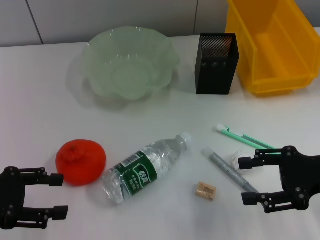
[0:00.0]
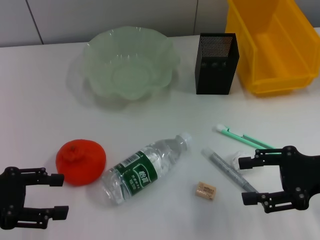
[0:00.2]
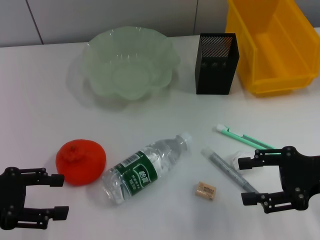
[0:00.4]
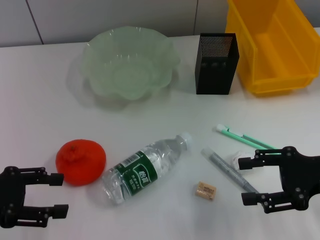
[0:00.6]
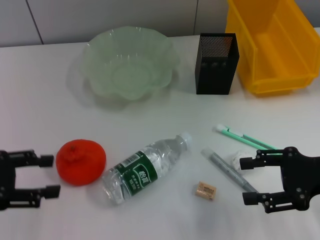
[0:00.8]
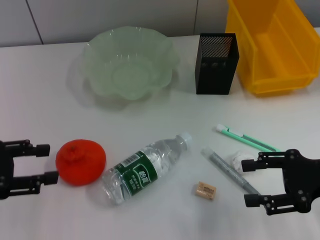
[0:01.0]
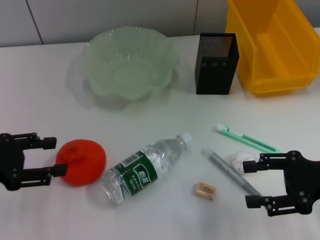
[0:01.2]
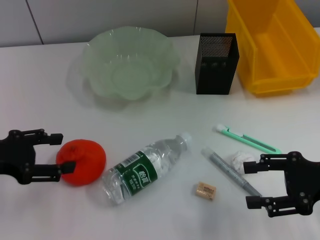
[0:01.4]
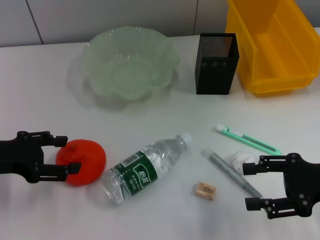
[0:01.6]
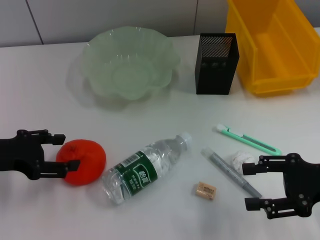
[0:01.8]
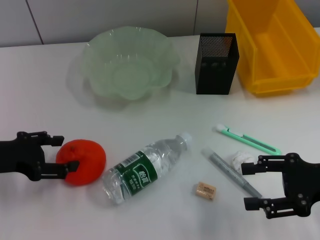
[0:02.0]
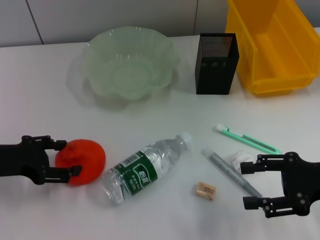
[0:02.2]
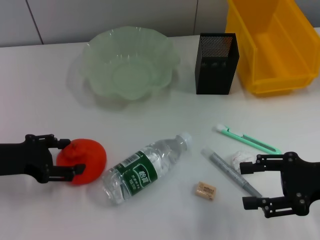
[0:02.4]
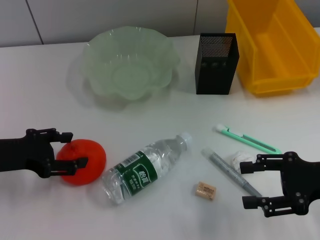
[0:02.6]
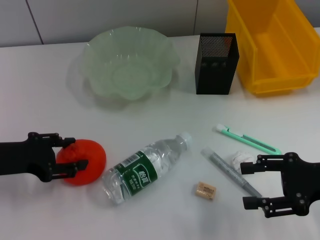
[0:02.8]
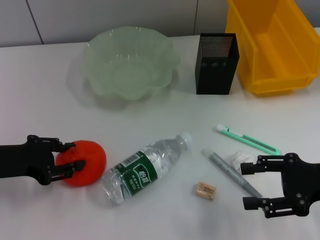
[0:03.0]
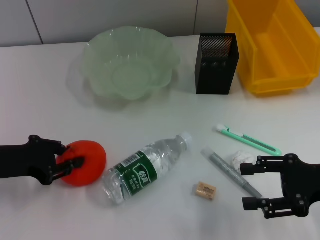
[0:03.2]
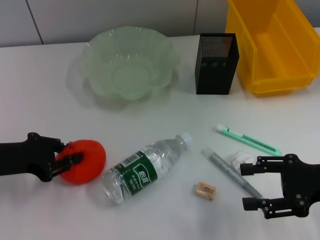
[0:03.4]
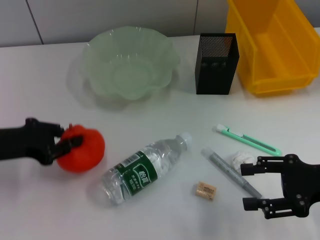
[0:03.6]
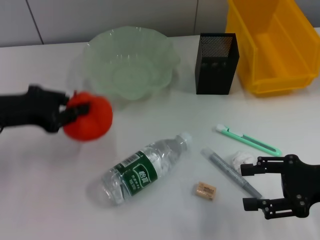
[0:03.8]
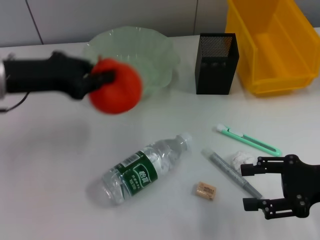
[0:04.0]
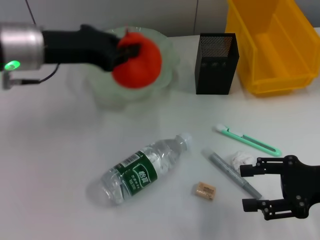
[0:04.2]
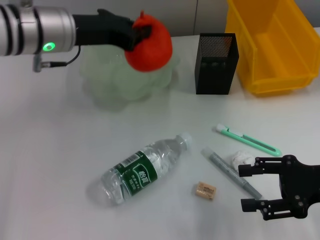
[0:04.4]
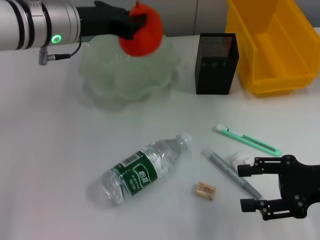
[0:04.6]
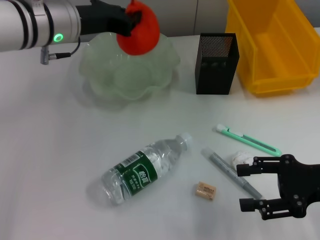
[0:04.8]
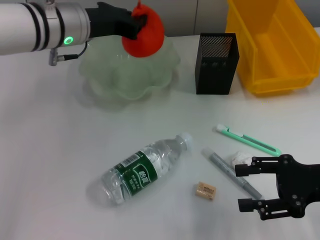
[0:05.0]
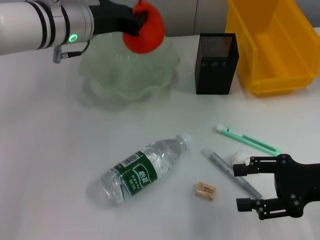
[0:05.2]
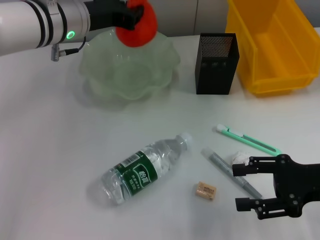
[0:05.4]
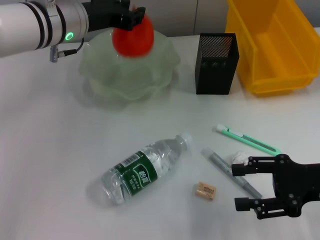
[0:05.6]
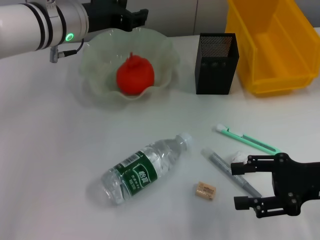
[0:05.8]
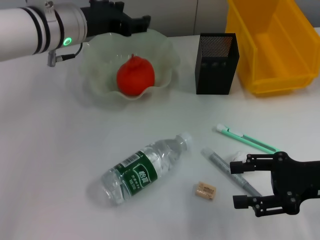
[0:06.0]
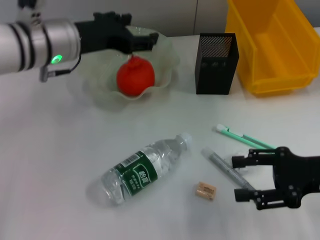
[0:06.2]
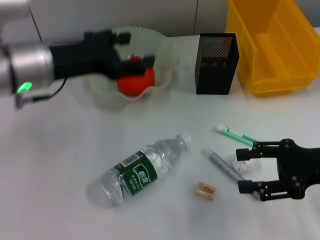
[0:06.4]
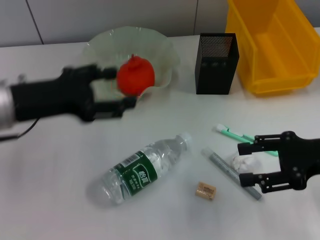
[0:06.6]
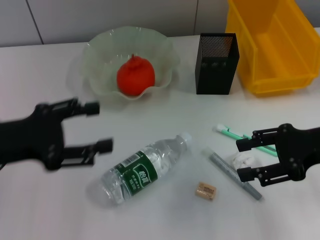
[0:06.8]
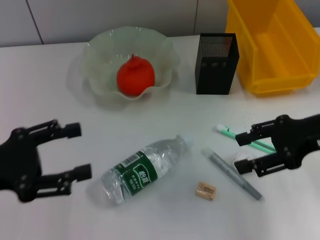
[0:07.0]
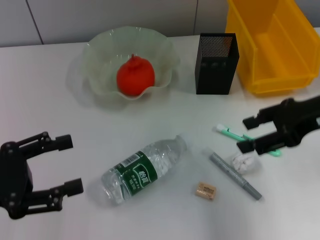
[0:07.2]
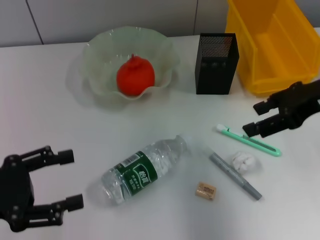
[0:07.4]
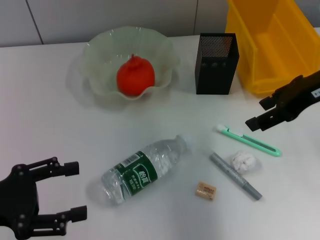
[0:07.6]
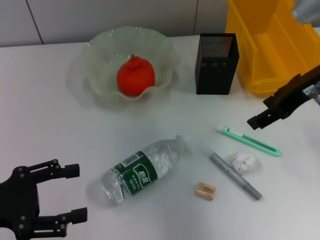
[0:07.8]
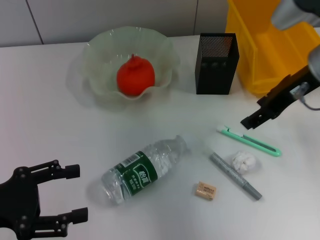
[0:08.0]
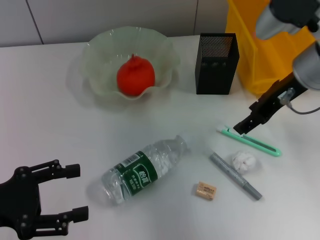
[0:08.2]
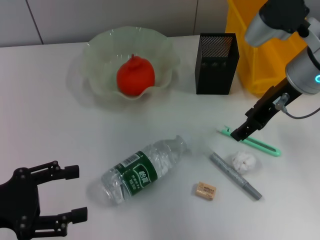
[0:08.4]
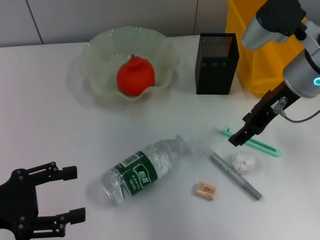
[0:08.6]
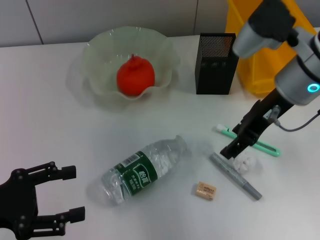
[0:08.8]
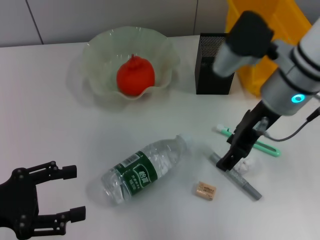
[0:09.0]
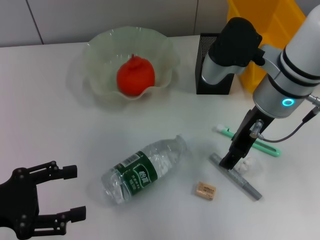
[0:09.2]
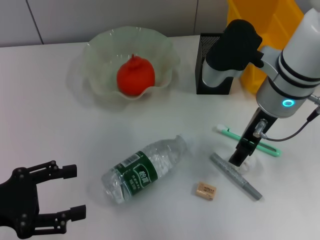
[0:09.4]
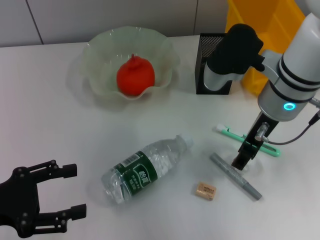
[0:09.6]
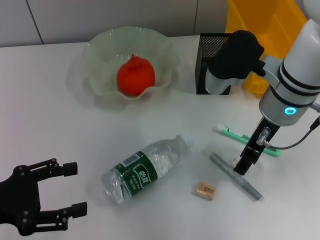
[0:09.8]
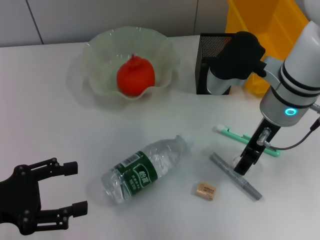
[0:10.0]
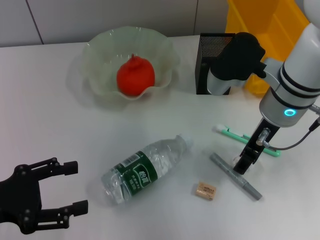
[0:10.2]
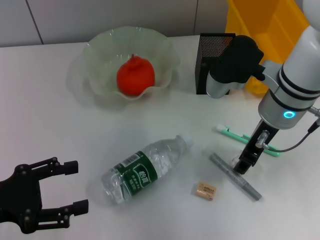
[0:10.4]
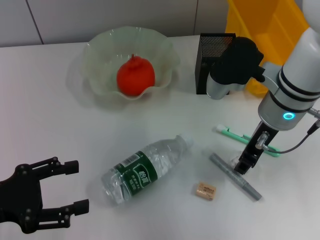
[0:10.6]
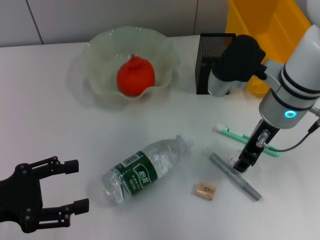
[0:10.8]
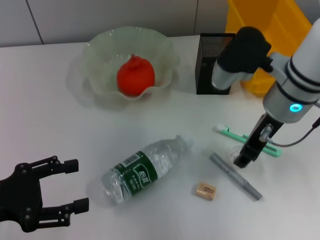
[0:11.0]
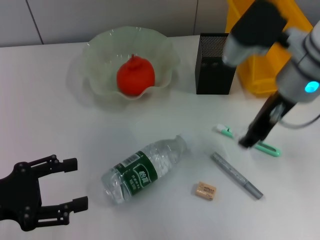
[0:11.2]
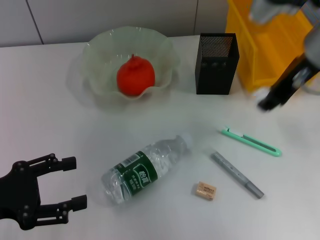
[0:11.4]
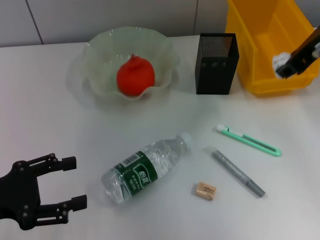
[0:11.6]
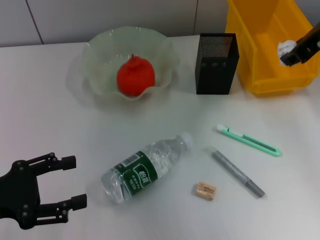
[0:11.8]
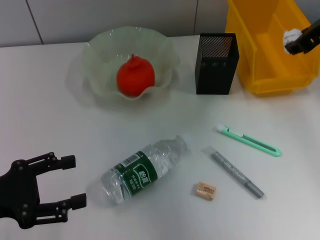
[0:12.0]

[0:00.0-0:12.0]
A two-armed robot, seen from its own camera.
Step, 0.0 to 3.2 s: Grab the orange with the right hand.
Step, 3.6 to 5.6 s: Place the orange into the fruit bowl with the left hand.
Step, 5.8 to 10.4 s: Grab the paper ball with the right hand.
0.0 to 1.6 s: The grippers make only small movements.
1.6 to 3.0 s: The grippers stay close to where they were, moving slightly.
3.0 to 4.4 s: The left gripper travels to the right, upward and forward by about 20 cm, and closes up.
4.4 to 6.0 s: The left gripper shifts by some 5 cm, and opens up.
6.0 to 7.6 s: The left gripper travels backward and to the left by about 25 cm, and opens up. Meanwhile the right gripper moves upward and forward, roughly 15 cm.
7.6 to 9.0 s: The right gripper heads to the left, covering about 10 cm.
9.0 to 10.4 s: There are only small adjustments of the grippers.
10.4 to 12.0 s: The right gripper shifts roughly 15 cm to the right and upward.

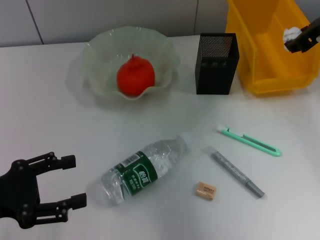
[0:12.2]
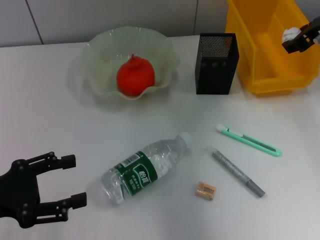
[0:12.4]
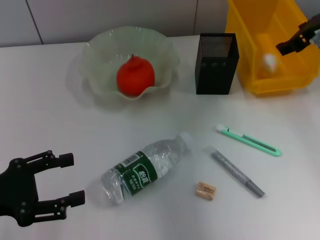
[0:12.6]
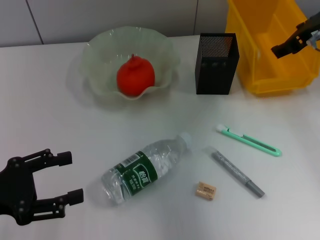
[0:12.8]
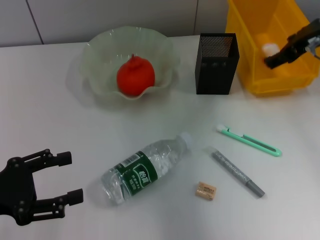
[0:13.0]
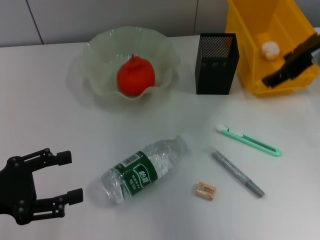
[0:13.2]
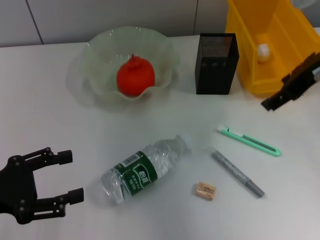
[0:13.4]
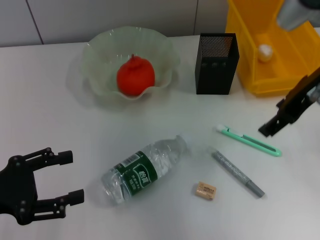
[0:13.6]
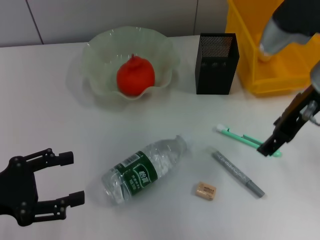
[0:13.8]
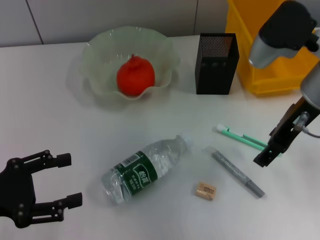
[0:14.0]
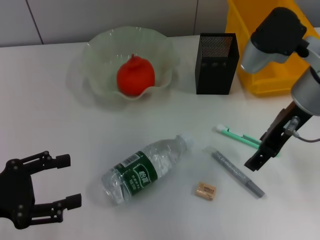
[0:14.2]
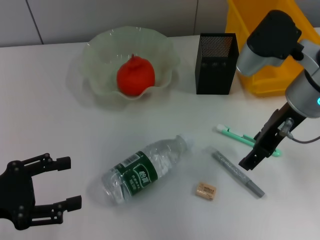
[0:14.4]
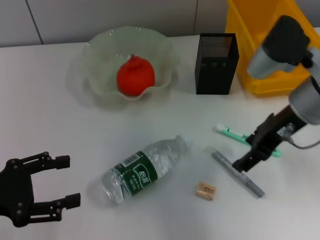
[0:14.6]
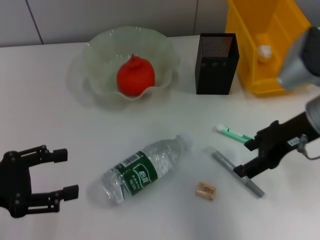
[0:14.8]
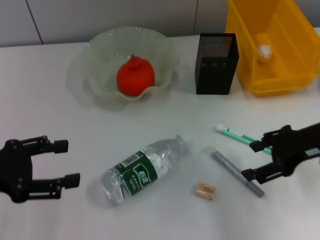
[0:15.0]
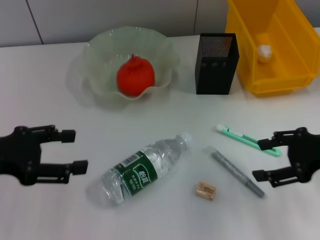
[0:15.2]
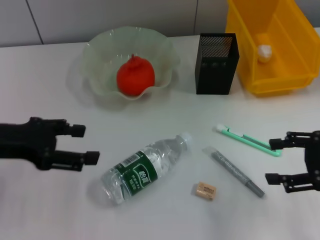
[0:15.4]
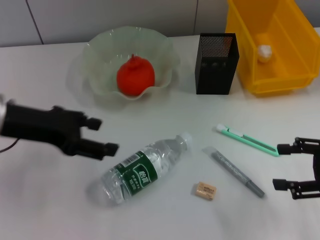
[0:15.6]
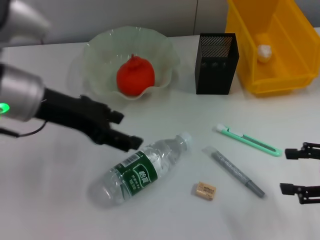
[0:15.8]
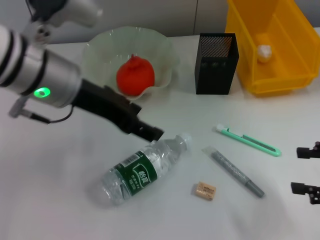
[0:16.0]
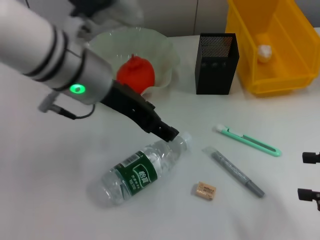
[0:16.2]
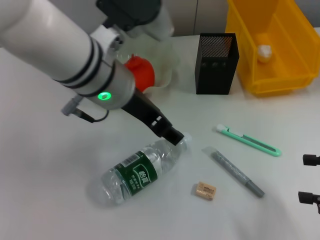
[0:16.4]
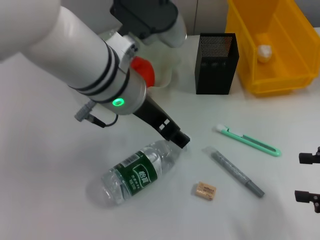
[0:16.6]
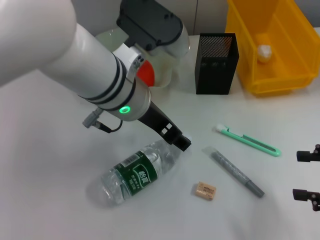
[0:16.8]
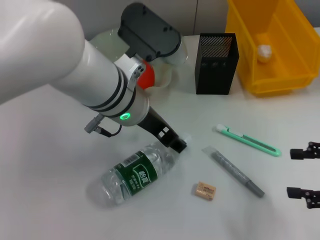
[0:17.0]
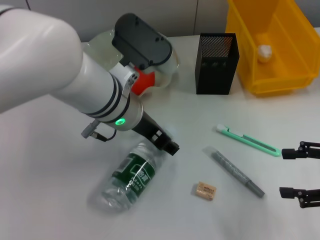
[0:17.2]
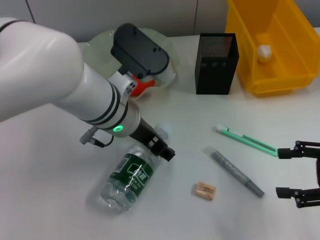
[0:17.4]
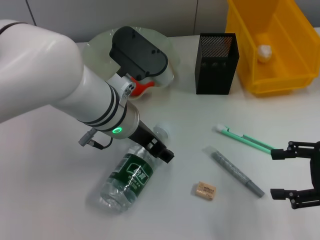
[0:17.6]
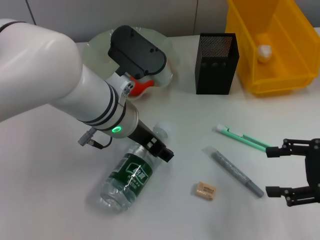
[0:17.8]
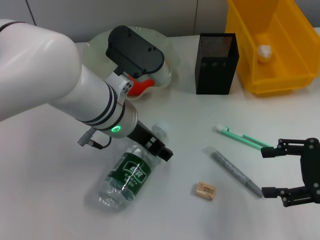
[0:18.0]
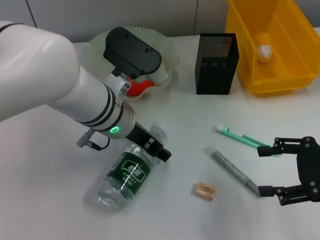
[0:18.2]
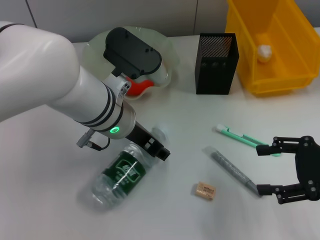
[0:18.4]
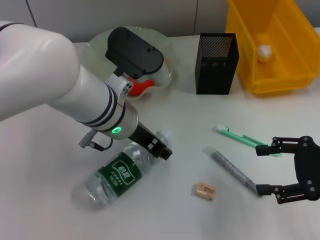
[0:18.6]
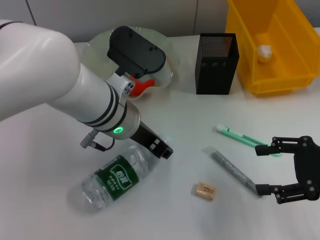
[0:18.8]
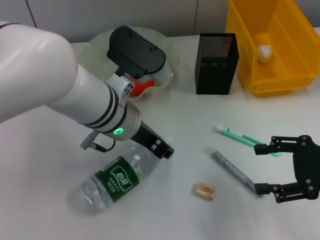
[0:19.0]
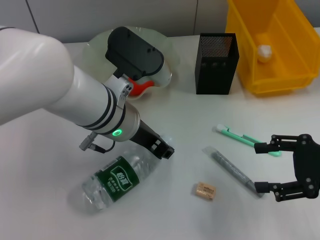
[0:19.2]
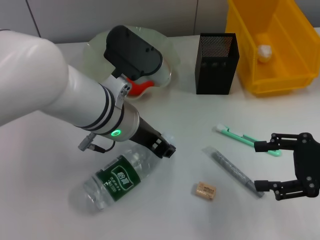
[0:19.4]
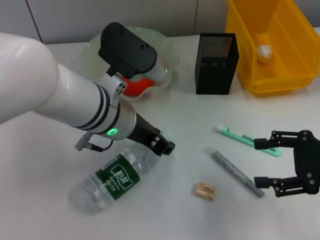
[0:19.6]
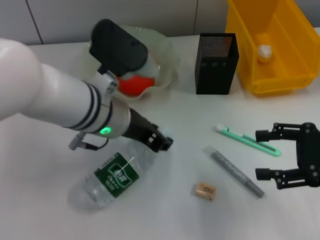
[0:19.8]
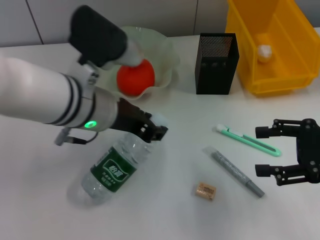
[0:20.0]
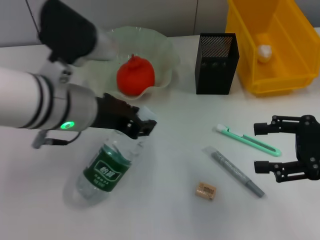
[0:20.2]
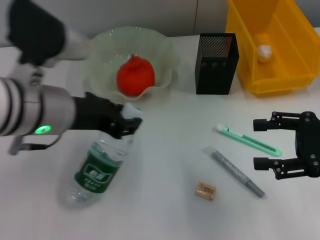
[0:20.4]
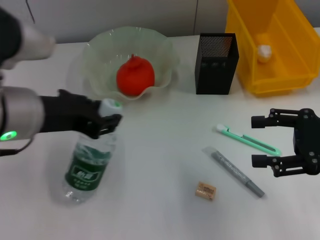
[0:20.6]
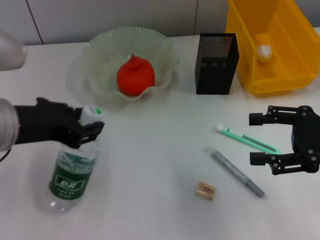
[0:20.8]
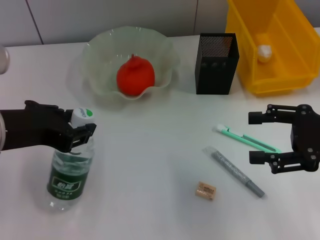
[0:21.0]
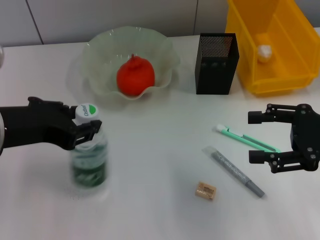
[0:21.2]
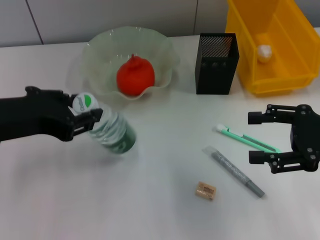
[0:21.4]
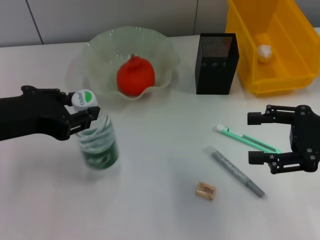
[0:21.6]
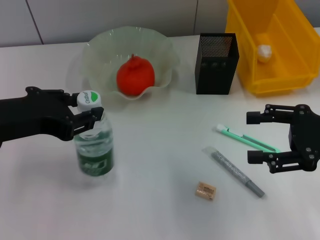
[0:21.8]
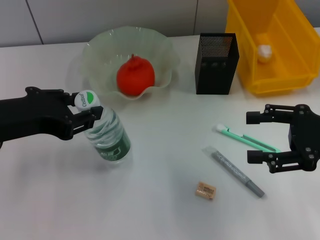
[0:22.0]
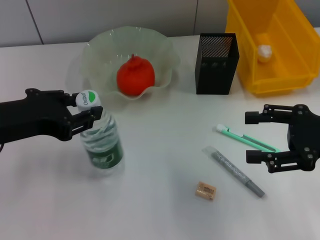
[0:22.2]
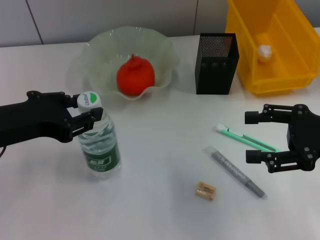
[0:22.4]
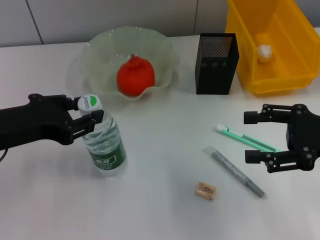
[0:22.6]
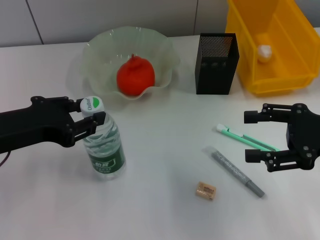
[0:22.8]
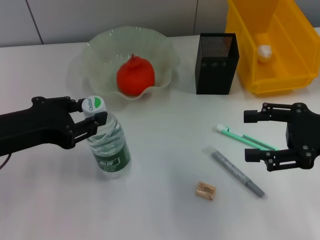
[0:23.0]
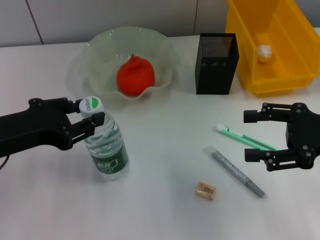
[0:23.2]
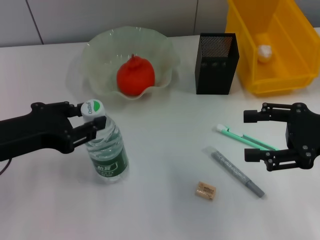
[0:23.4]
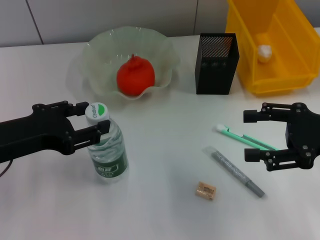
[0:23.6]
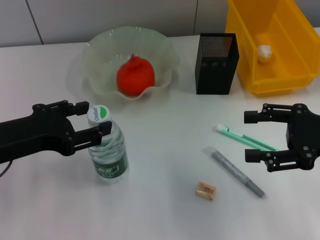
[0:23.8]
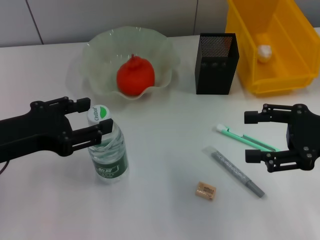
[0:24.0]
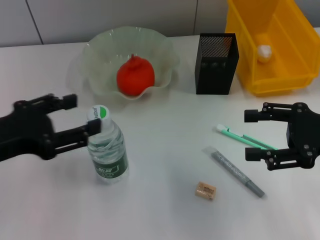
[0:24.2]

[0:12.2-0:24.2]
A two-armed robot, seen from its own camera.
Step, 12.8 to 19.0 s: Grab the water bottle with the left hand.
Step, 19.4 to 24.0 s: Place the water bottle on the table with the left hand.
12.2 to 13.8 s: The right gripper shifts about 10 cm backward and to the left, and opens.
13.8 to 15.2 s: The left gripper shifts by approximately 5 cm. Meanwhile the right gripper shifts roughly 15 cm to the right, downward and backward.
15.2 to 16.6 s: The right gripper travels backward and to the right by roughly 10 cm, while the left gripper travels to the right by some 25 cm.
16.6 to 18.2 s: The right gripper ends up some 5 cm from where it was; the left gripper goes some 5 cm downward.
18.2 to 19.8 s: The left gripper closes its fingers.
19.8 to 21.2 s: The left gripper travels to the left, backward and upward by approximately 15 cm.
21.2 to 22.6 s: The grippers stay close to where they were, moving slightly.
22.6 to 24.2 s: The grippers move only a little.
